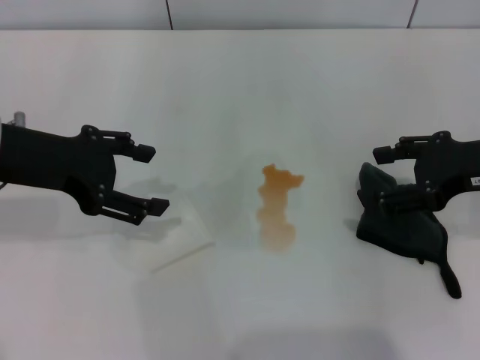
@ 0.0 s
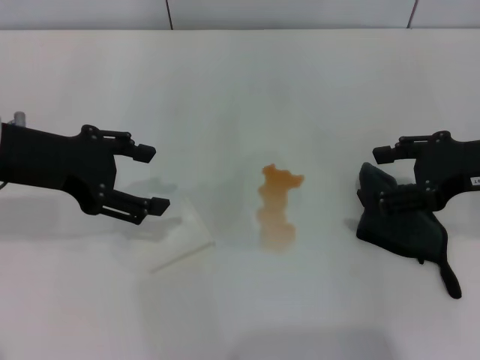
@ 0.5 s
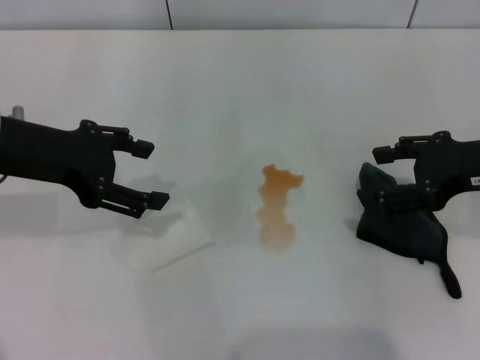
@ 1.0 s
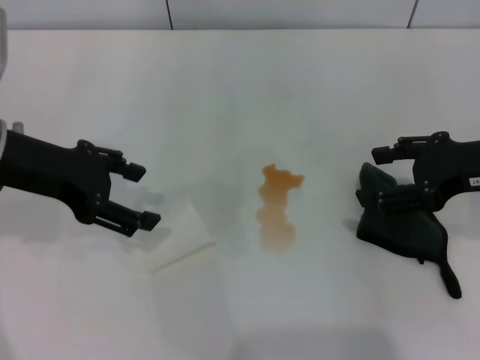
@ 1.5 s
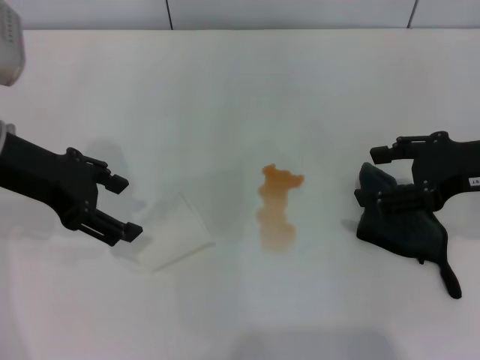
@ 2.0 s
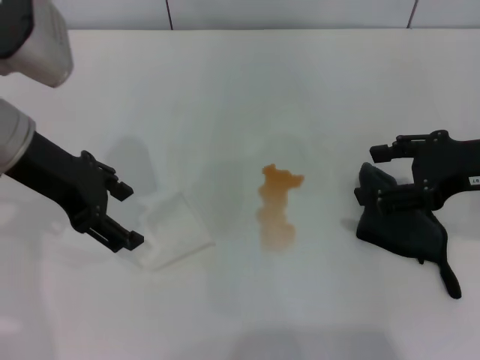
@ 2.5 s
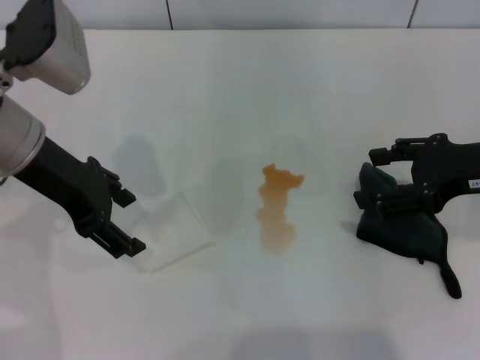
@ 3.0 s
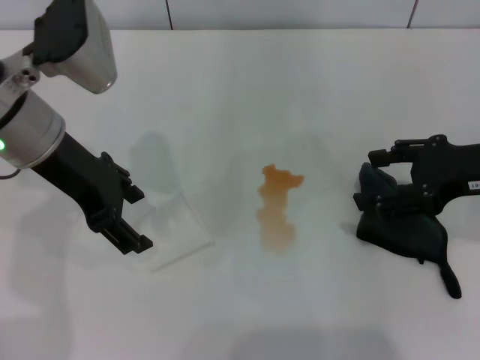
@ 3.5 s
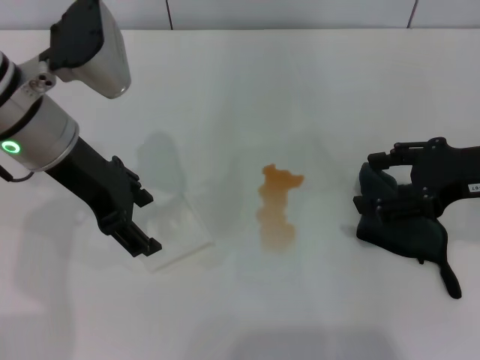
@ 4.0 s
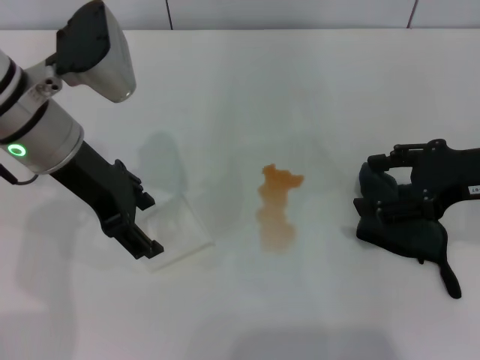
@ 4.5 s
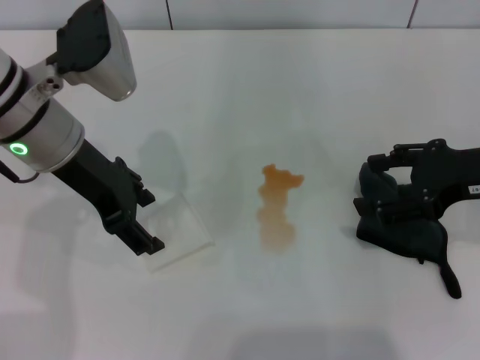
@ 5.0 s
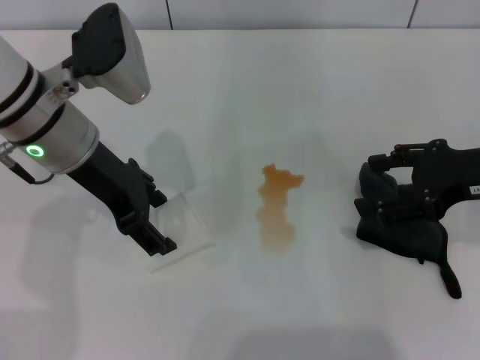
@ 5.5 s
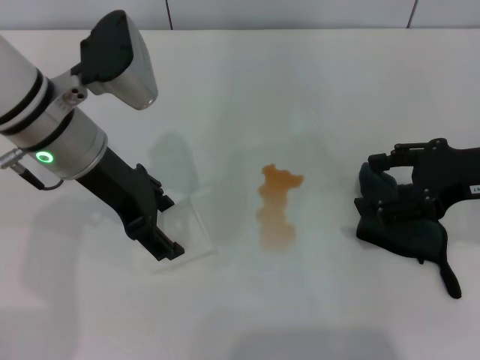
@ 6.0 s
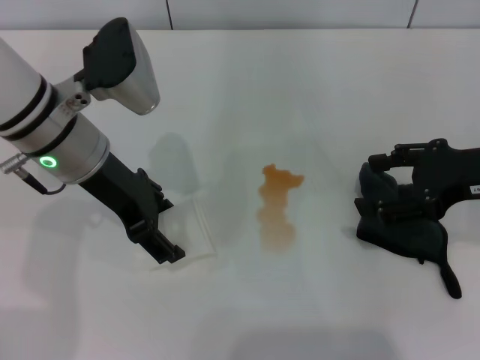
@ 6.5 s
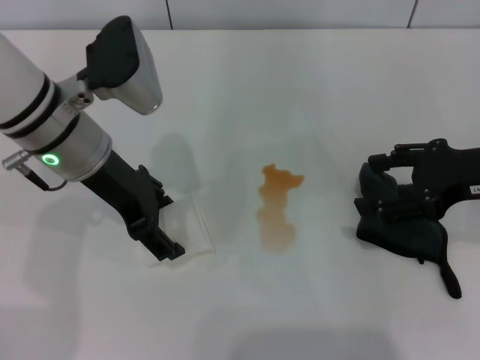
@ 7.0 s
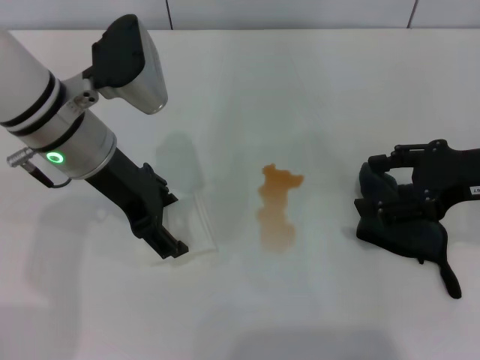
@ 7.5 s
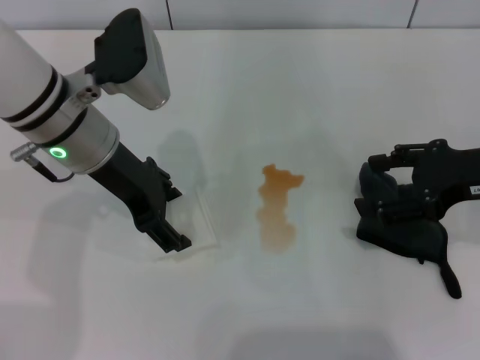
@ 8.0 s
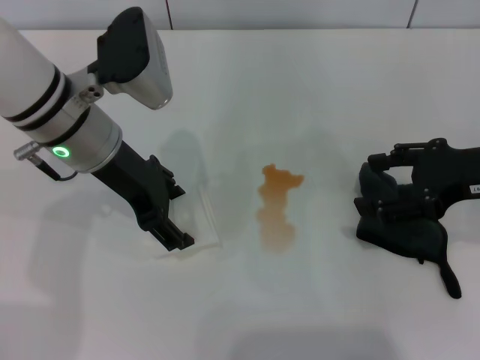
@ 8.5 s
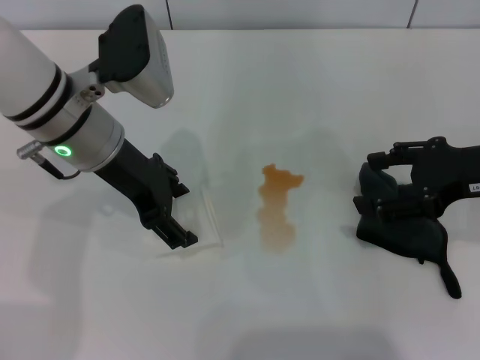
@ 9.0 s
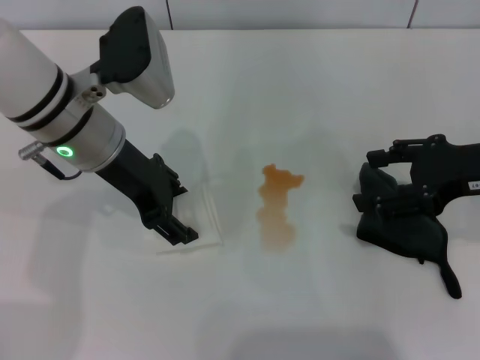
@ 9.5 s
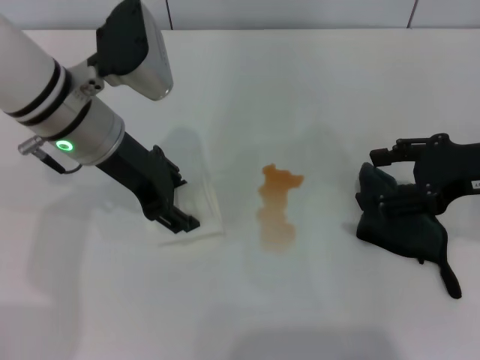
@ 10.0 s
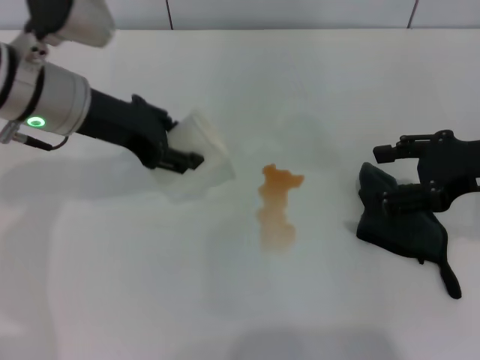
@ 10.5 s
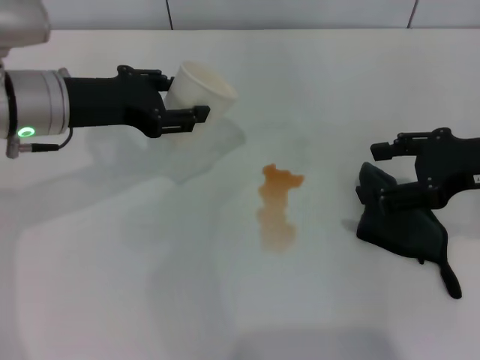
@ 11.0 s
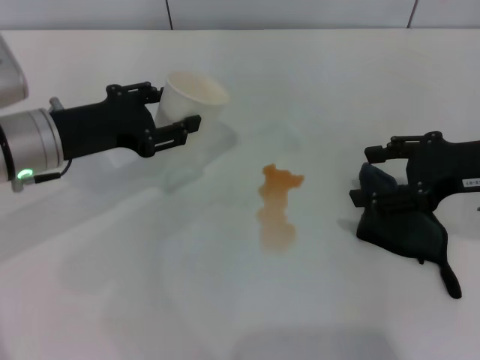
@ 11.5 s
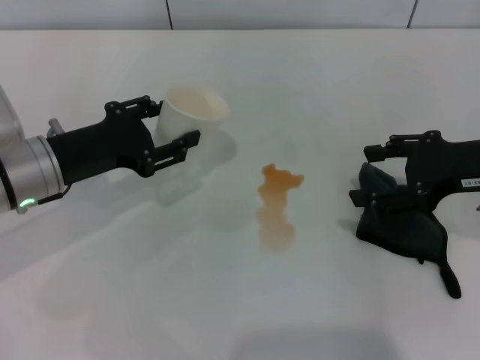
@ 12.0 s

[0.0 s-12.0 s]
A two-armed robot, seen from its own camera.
Step, 0.0 to 9.5 s: Grasp the paper cup with the left gripper.
0.0 to 2.0 s: There are only small adjustments of the grippers.
2.0 to 4.0 s: The left gripper heads to the right, covering some 5 cm.
4.0 to 6.0 s: The grippers stay close to where they were, moving slightly.
6.0 to 8.0 s: The two grippers keep their place.
8.0 to 10.0 s: The left gripper closes.
10.0 to 12.0 s: The left gripper is displaced to the left and downward by some 10 cm.

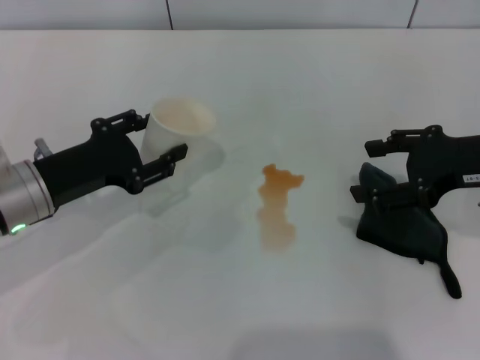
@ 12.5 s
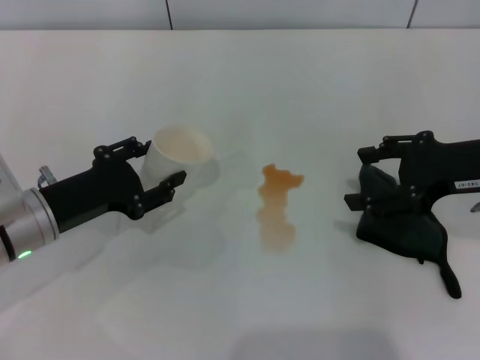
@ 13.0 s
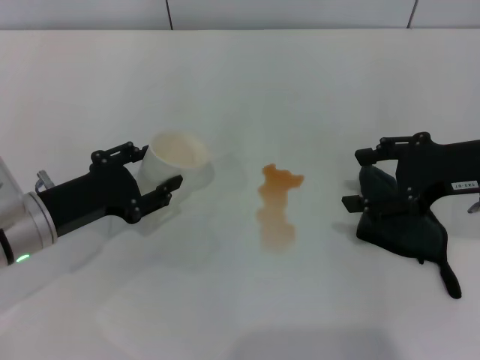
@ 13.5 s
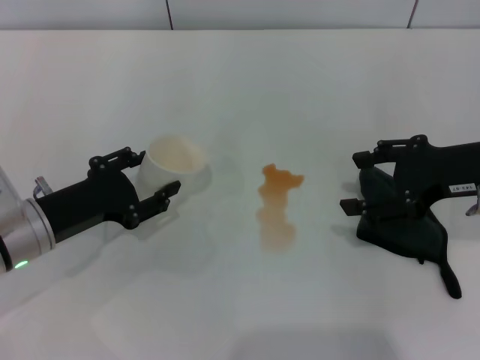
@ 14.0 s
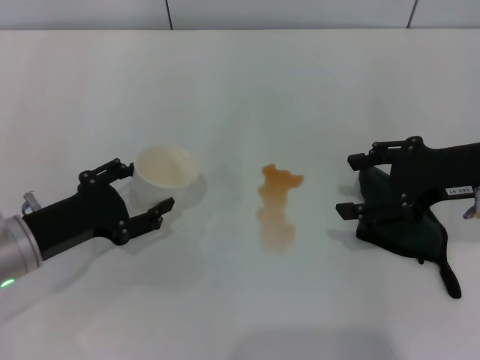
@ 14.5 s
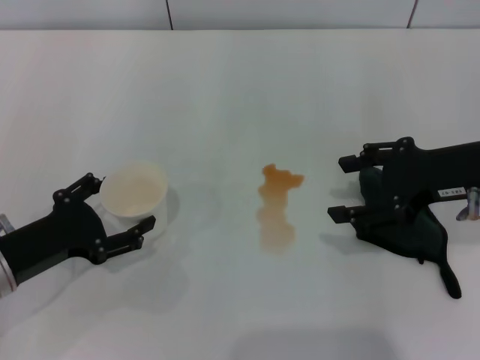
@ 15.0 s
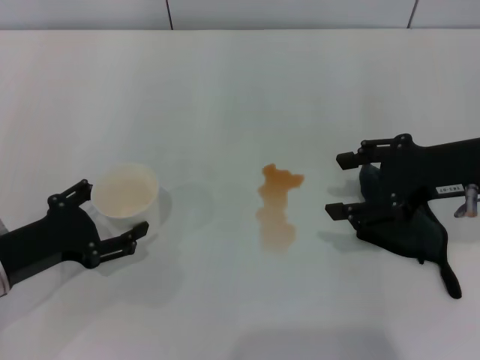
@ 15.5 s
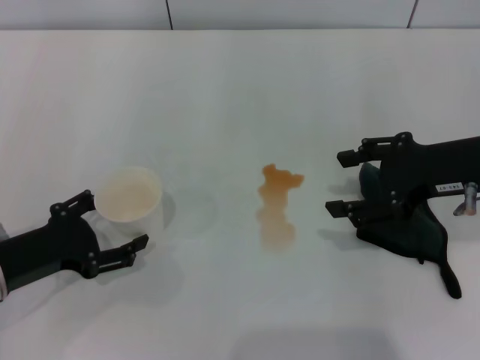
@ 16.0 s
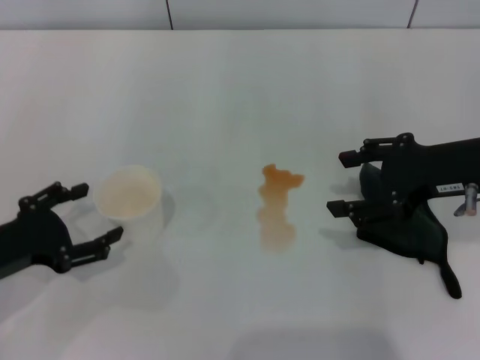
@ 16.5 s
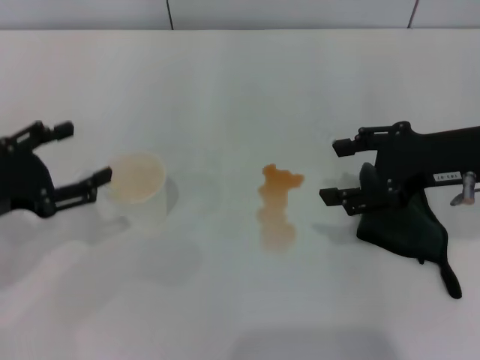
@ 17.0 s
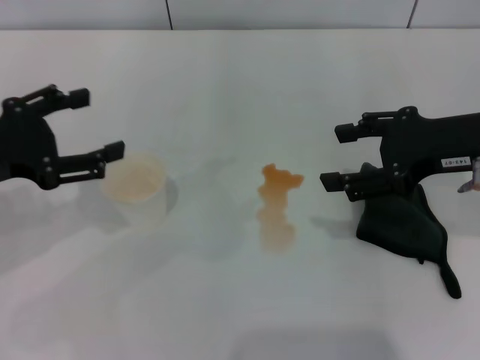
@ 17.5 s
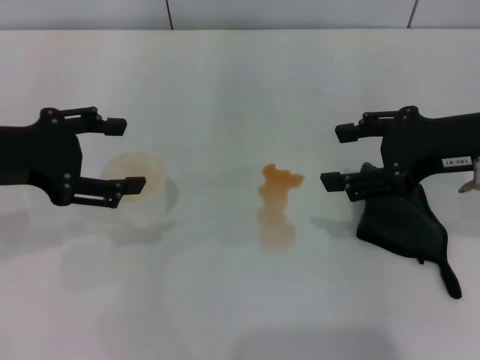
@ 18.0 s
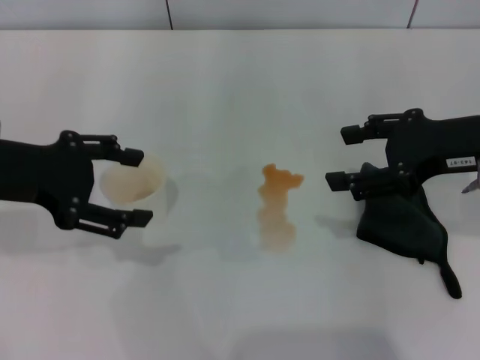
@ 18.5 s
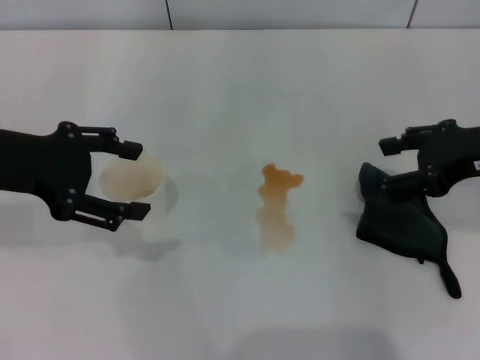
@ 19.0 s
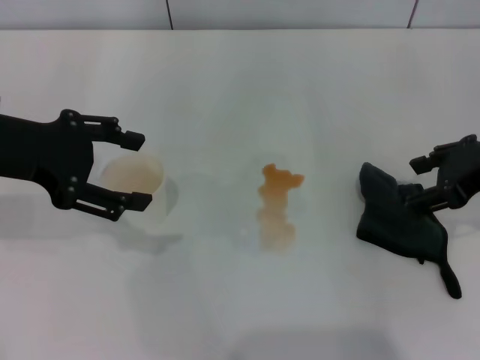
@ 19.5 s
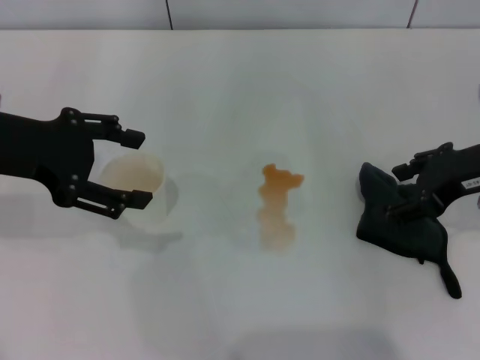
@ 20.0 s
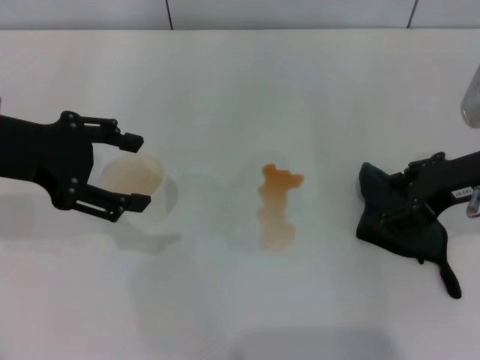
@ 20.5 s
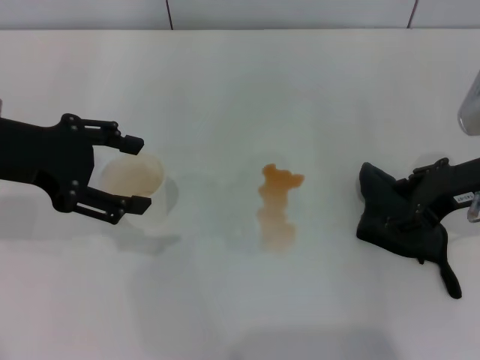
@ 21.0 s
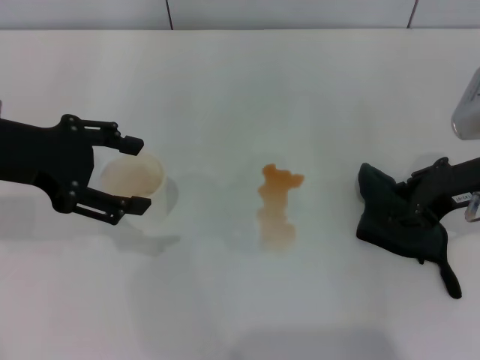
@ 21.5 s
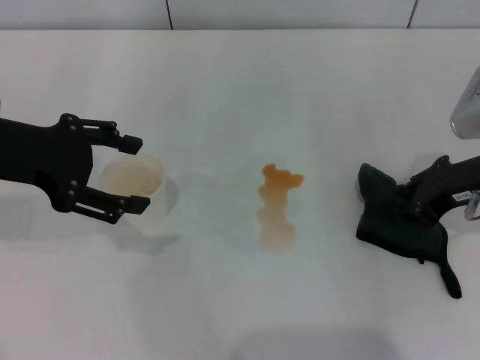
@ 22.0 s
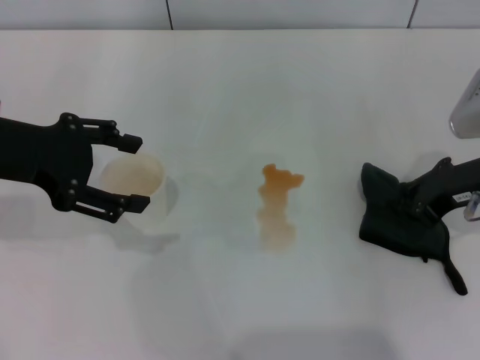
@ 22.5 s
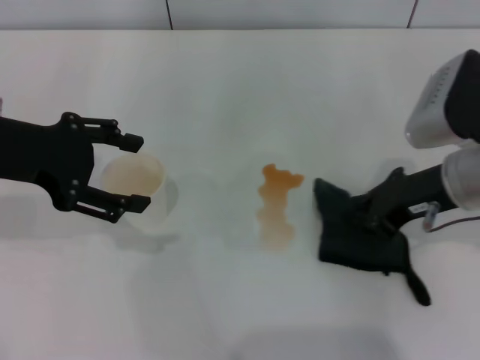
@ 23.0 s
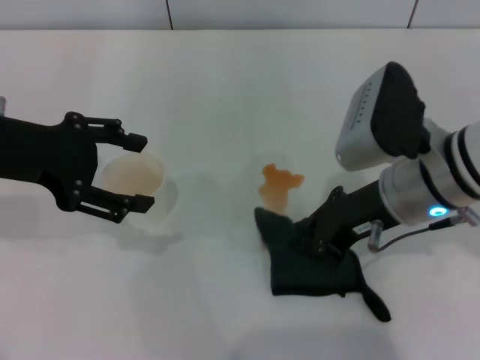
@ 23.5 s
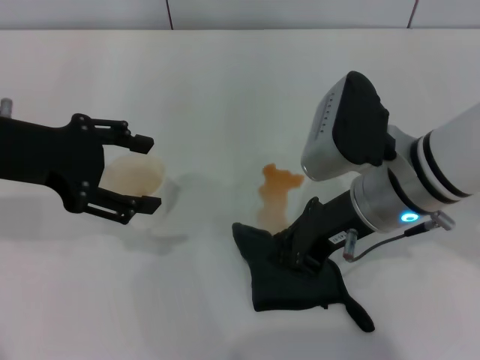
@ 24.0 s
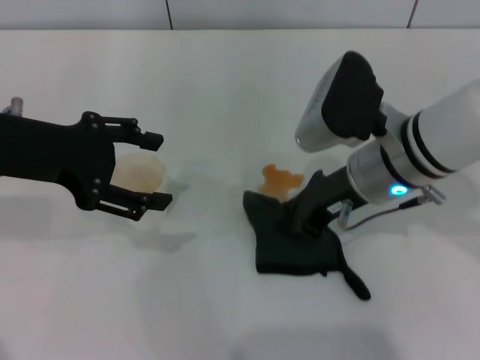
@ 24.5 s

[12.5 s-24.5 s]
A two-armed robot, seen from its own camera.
Step, 12.5 to 17.0 s: Stand the paper cup upright with the left gripper.
Step, 17.5 to 22.0 s: Grasp the rag with the right gripper.
12.5 to 14.5 s: The left gripper shifts by roughly 5 cm.
14.5 to 16.5 s: The left gripper ends up about 5 cm from where it was, and opens its fingers.
16.5 to 18.5 s: The left gripper travels upward and forward by roughly 15 cm.
20.5 to 22.5 s: The right gripper closes.
22.5 to 24.5 s: The right gripper heads to the left, covering some 15 cm.

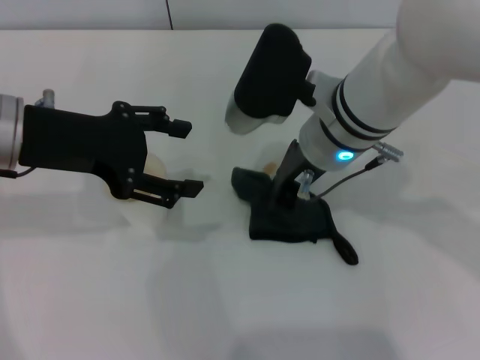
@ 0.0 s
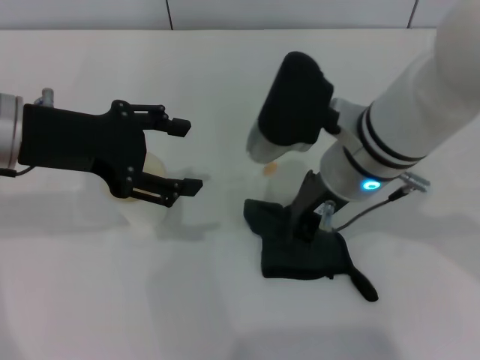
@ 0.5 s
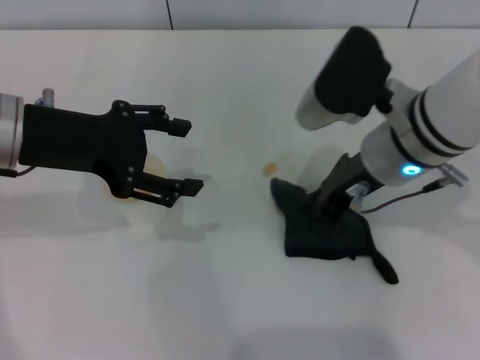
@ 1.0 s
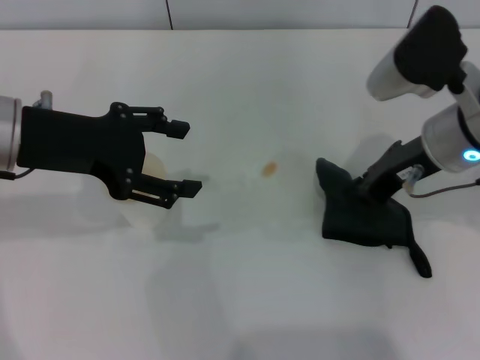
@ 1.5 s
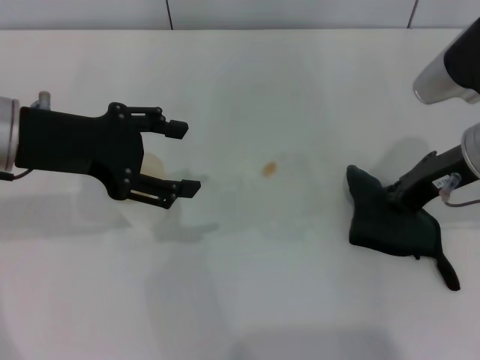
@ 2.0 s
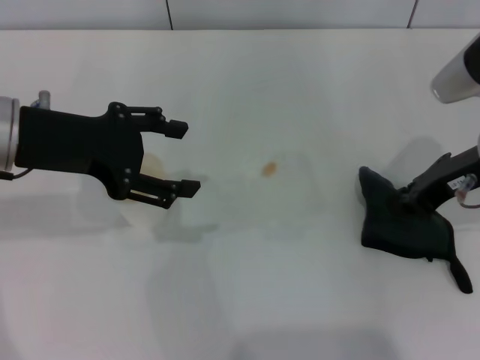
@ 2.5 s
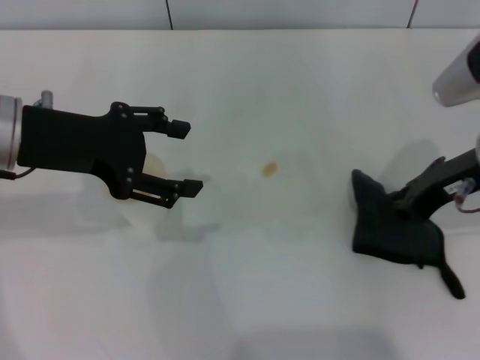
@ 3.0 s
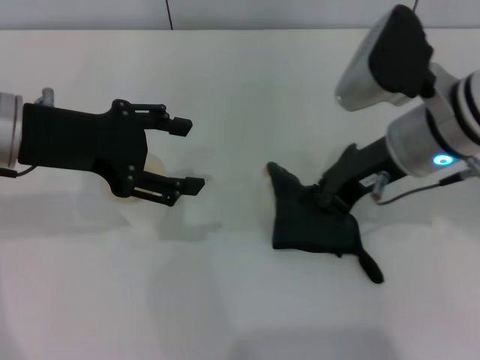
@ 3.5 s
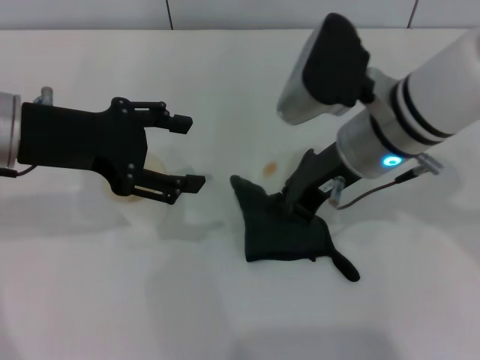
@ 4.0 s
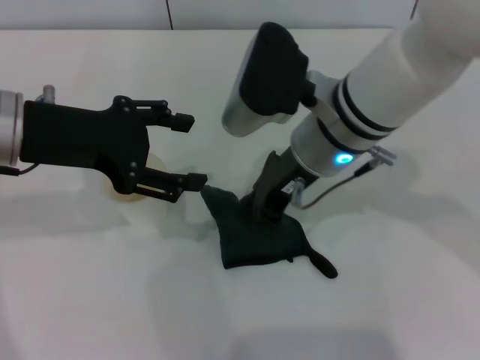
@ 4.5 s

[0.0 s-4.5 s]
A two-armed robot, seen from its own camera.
0.0 to 2.0 s: The right gripper moves to the right, roughly 15 cm.
2.0 to 4.5 s: The right gripper travels to the left by about 15 cm.
